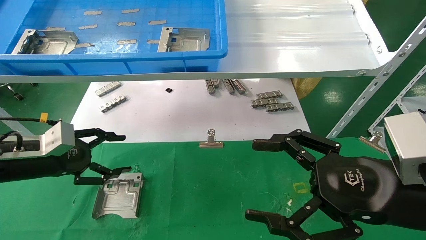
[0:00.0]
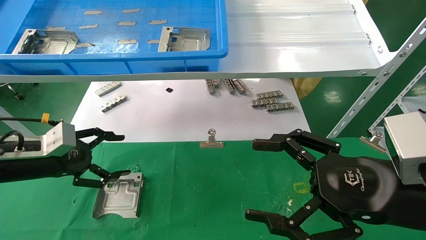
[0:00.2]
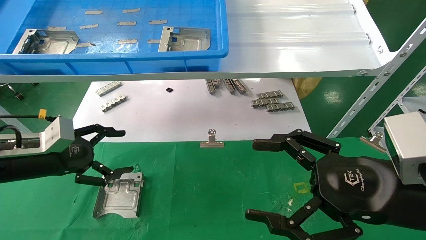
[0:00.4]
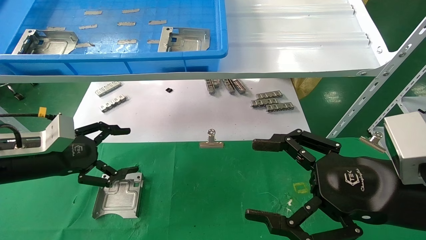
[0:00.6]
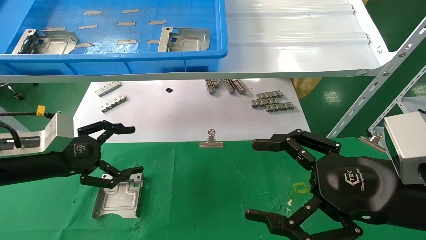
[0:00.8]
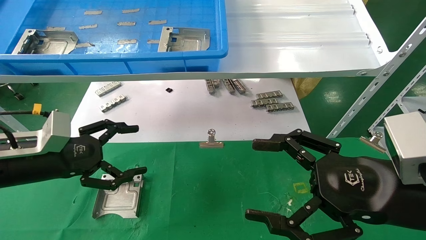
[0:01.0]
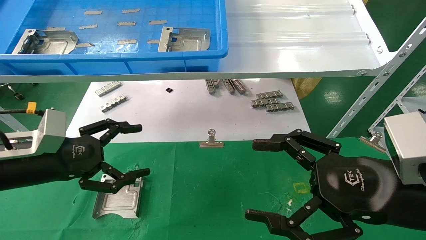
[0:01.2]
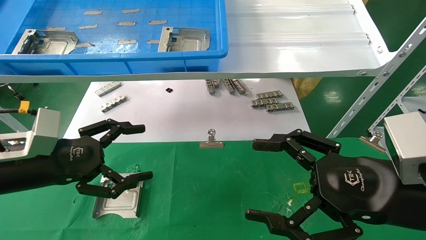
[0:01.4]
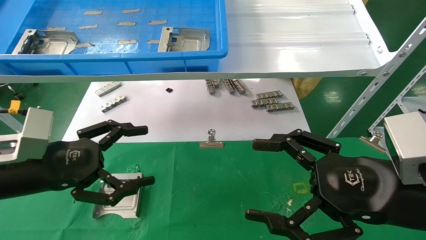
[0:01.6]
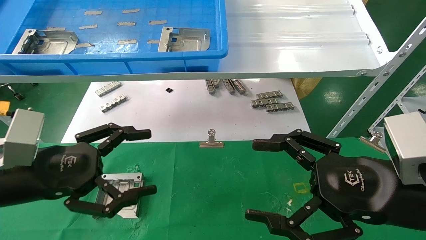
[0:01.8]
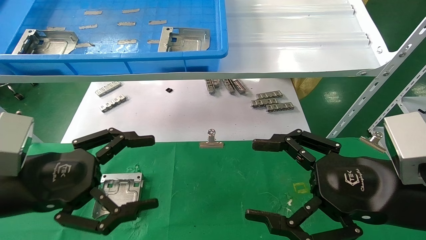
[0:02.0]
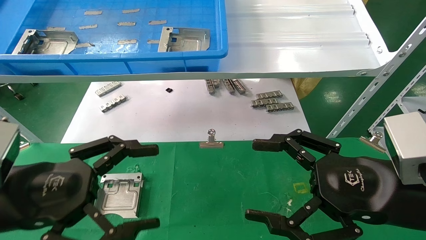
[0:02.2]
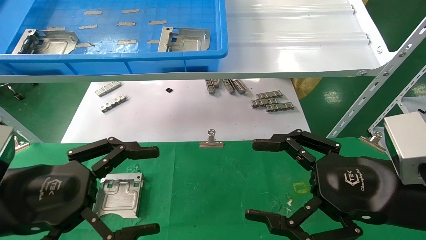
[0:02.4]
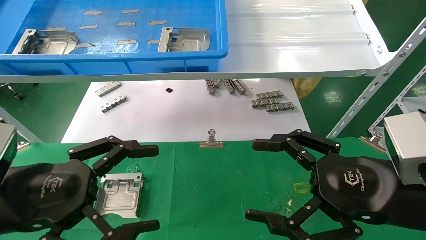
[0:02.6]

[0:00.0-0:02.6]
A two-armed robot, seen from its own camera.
Task of the whole recording: use the mechanical arm to pick up the parts and place them on the table.
0:00.0 to 0:01.2: The left gripper shifts about 5 cm to the right, and opens up.
0:01.2 to 0:02.6: The left gripper shifts approximately 10 cm backward.

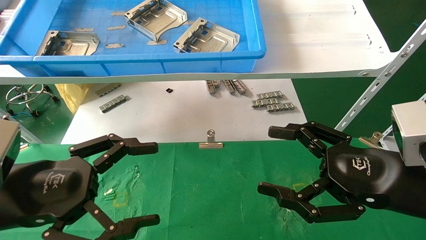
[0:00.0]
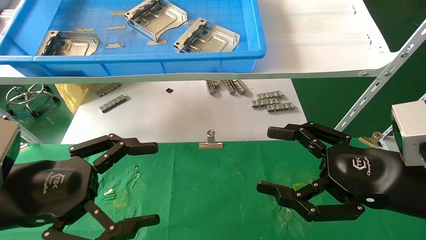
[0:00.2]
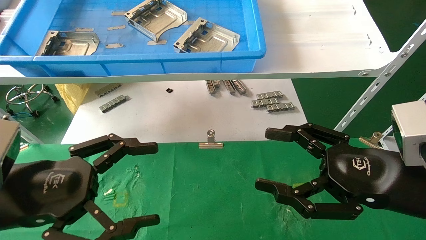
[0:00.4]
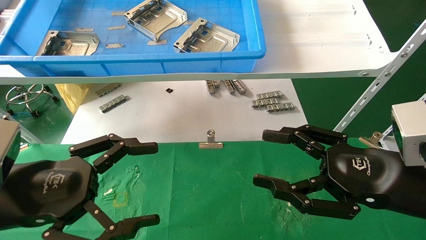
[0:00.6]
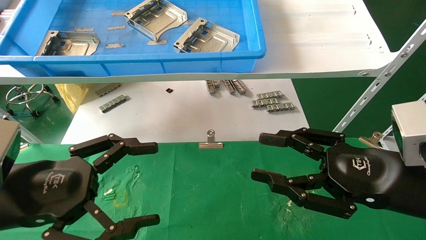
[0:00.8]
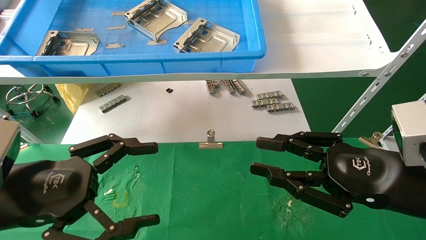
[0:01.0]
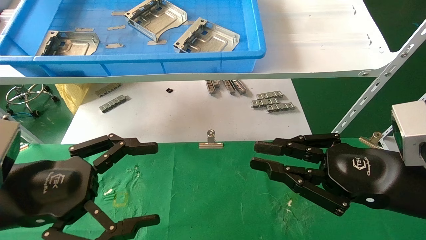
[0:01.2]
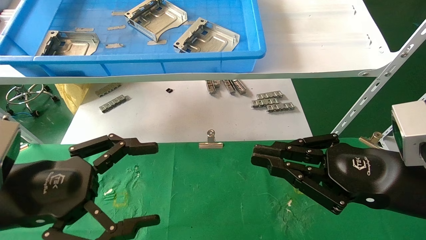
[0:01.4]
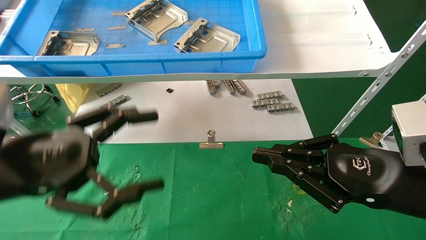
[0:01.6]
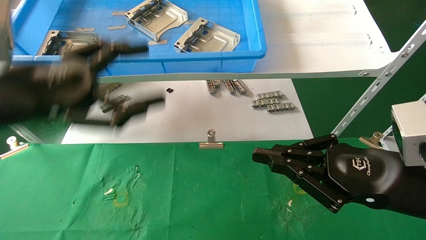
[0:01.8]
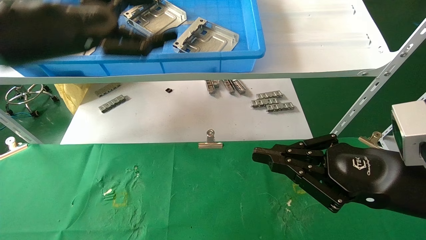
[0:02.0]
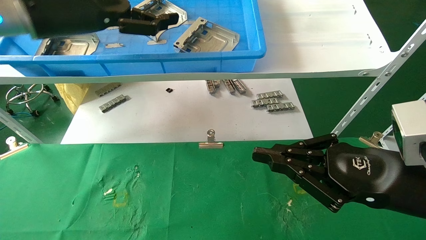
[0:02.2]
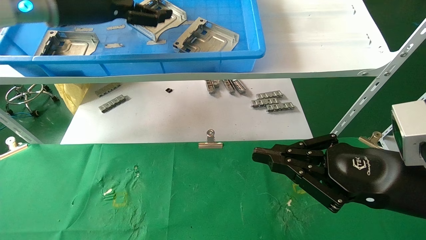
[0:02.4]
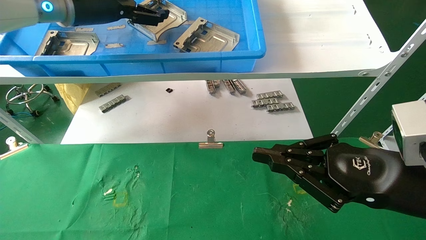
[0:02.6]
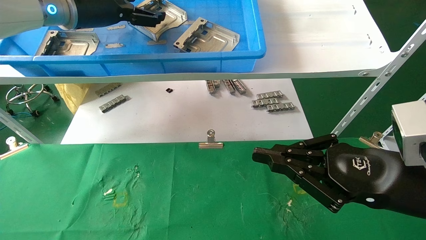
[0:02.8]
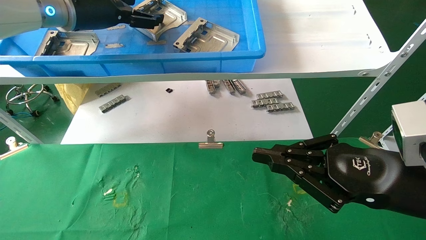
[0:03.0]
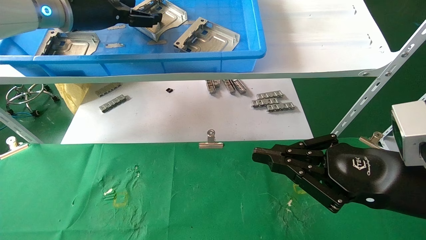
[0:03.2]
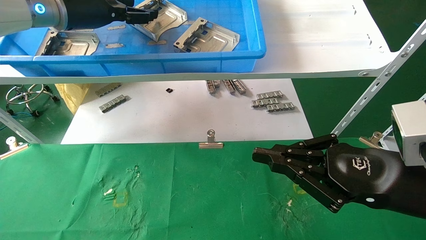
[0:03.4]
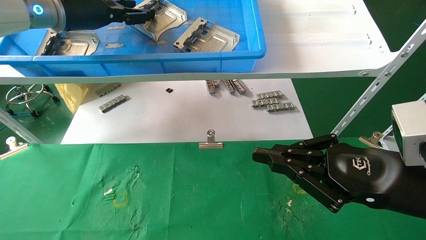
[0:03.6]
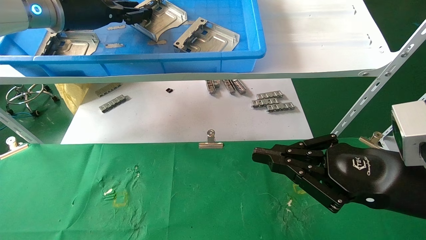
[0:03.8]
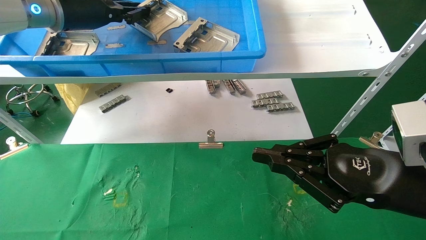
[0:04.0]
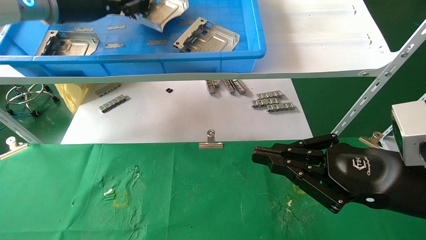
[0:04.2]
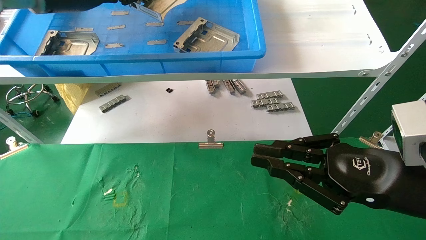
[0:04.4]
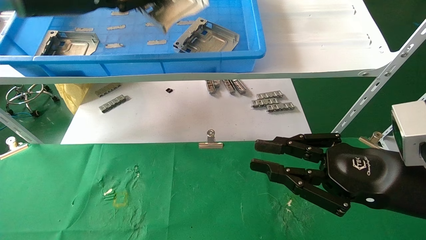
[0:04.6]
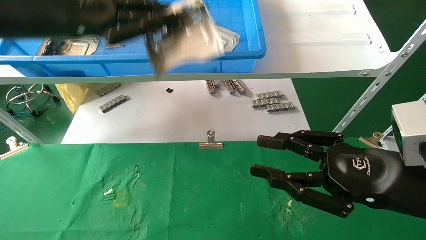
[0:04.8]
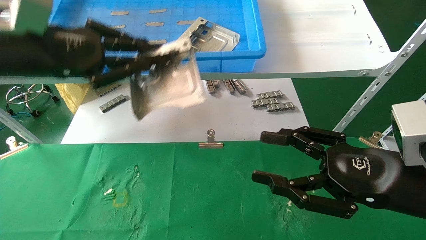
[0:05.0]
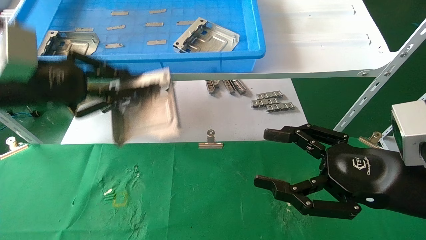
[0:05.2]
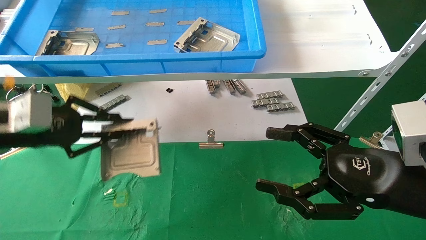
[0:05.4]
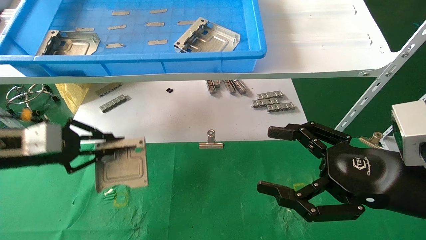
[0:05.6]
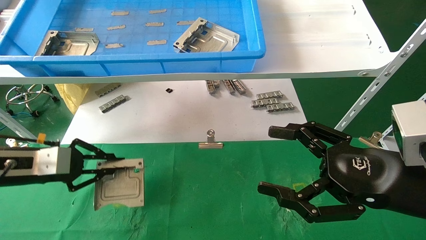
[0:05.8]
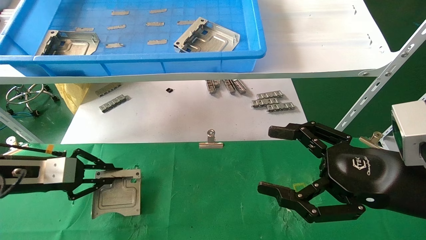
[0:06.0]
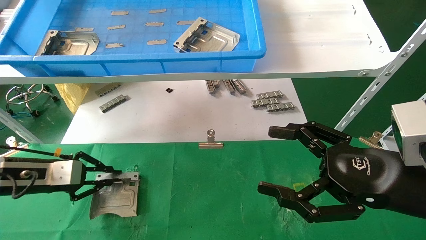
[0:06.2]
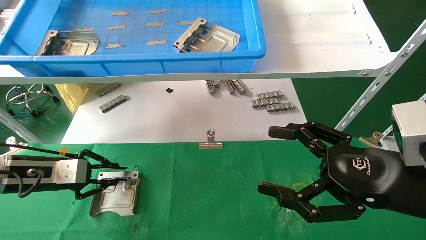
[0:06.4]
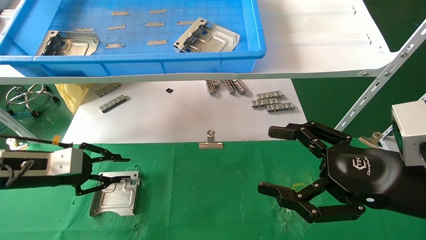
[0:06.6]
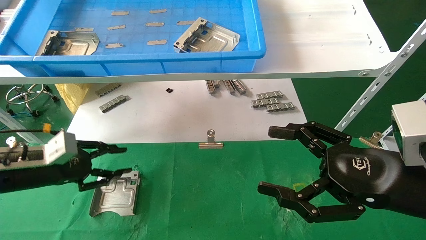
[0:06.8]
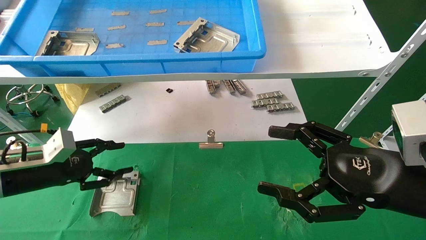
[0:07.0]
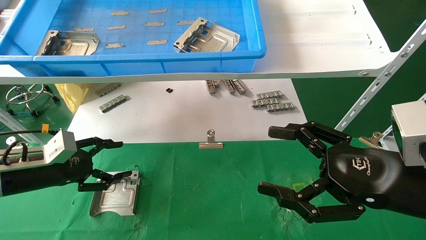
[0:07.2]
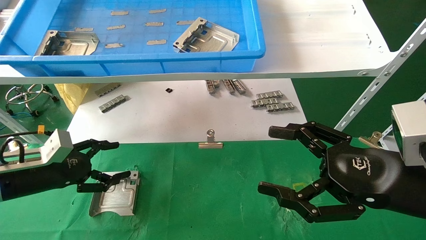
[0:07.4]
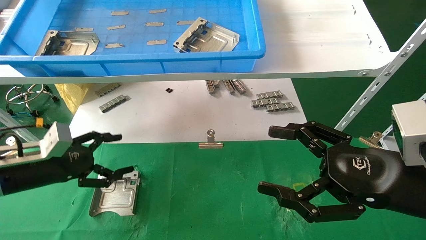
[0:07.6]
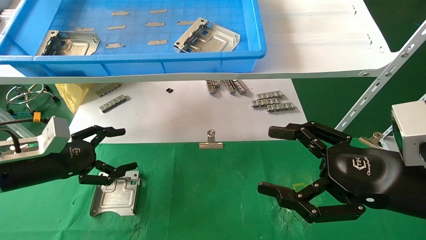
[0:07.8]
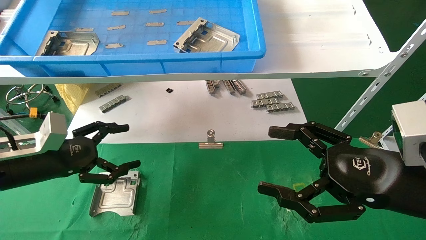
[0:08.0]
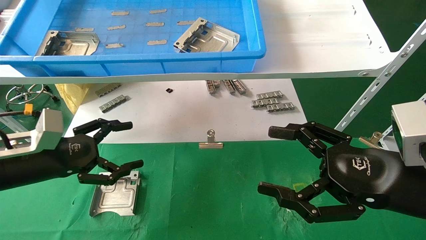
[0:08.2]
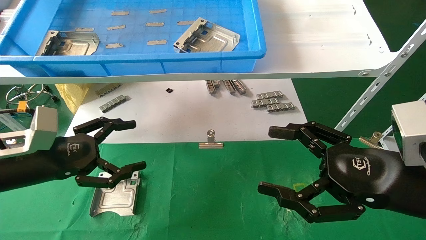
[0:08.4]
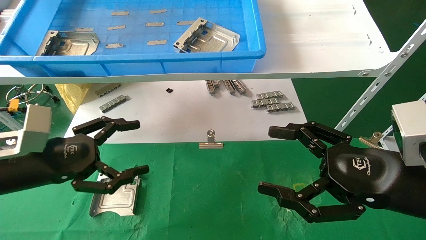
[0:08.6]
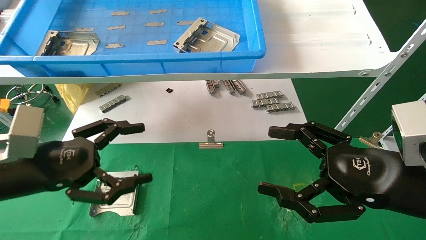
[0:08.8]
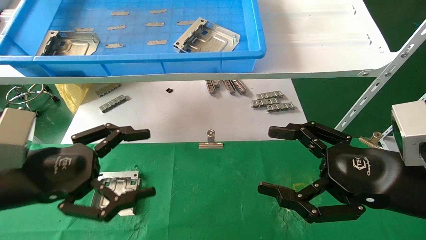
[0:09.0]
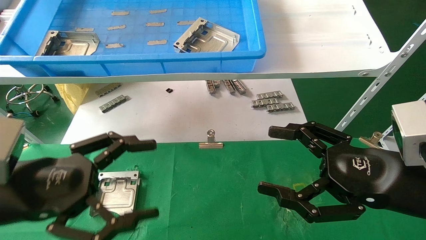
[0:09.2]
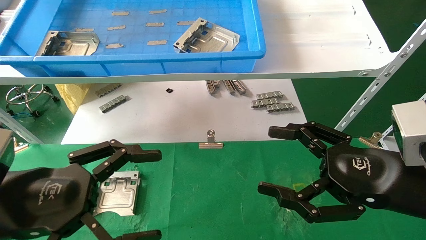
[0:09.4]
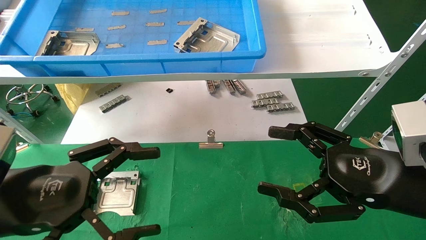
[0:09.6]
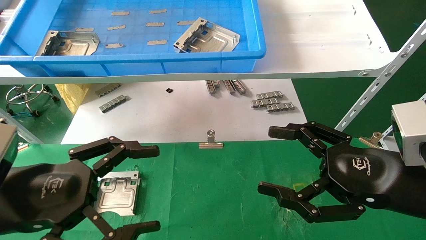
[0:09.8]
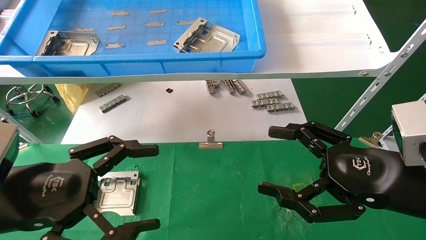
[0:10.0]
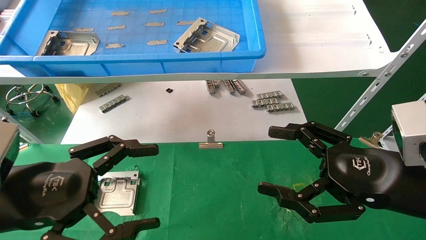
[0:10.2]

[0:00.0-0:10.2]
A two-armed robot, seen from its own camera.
Task of the whole recording: use the mechanical arm to pick up the parts and place them on the table.
Step, 0:01.8 to 0:04.2: Pick up the hard drive bracket from the feeding area.
Step, 0:04.4 to 0:06.4: Place the hard drive bracket into the box.
0:00.0 to 0:01.4: The right gripper closes its fingers.
0:01.4 to 0:03.0: The left gripper heads forward and upward, covering about 30 cm.
0:03.0 to 0:04.4: The left gripper closes.
0:04.4 to 0:05.8: The left gripper goes roughly 30 cm downward and to the left, while the right gripper opens.
0:05.8 to 0:07.2: The left gripper opens.
0:07.2 to 0:08.8: The left gripper goes roughly 15 cm backward, to the right and upward, and opens.
0:08.8 to 0:10.2: The left gripper goes roughly 5 cm backward.
